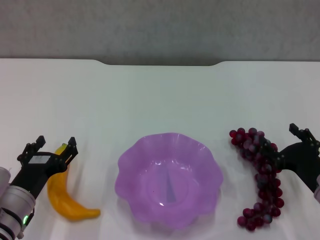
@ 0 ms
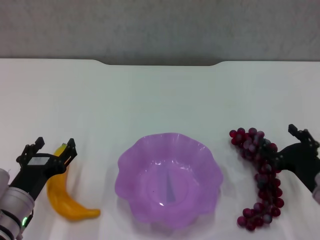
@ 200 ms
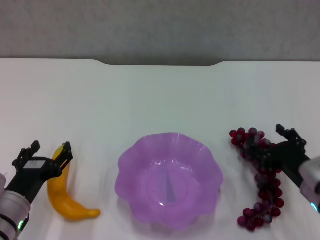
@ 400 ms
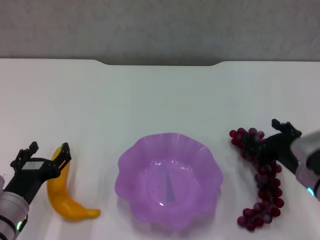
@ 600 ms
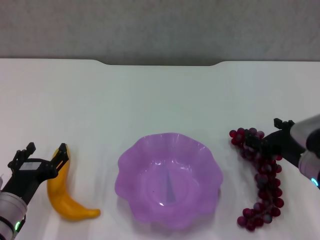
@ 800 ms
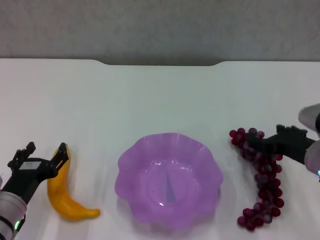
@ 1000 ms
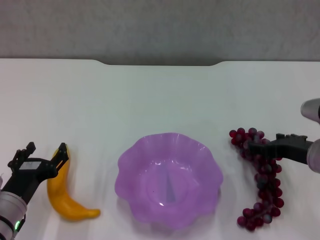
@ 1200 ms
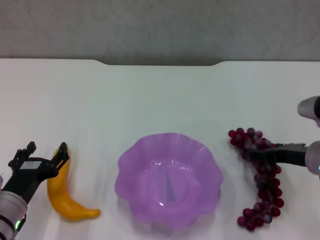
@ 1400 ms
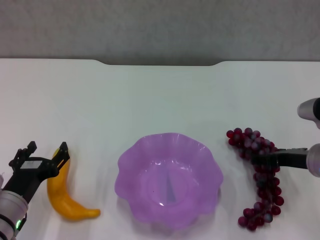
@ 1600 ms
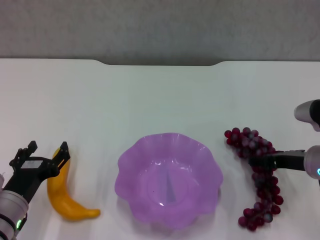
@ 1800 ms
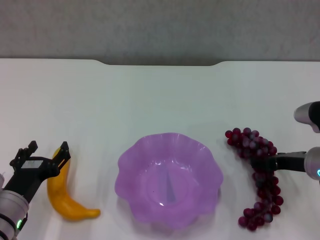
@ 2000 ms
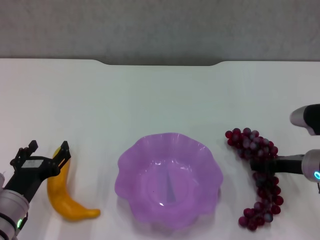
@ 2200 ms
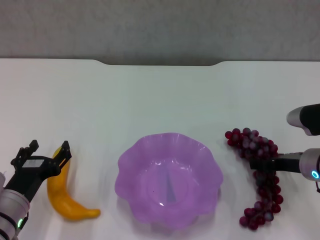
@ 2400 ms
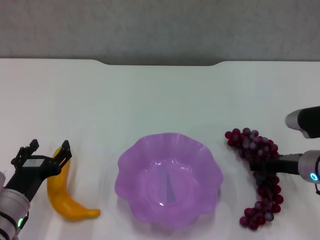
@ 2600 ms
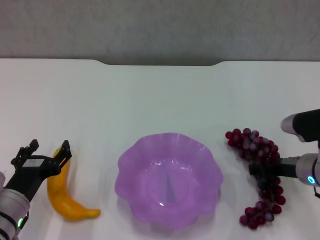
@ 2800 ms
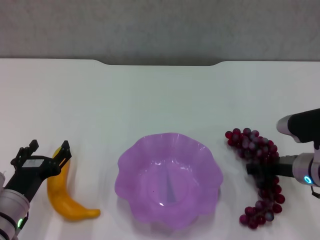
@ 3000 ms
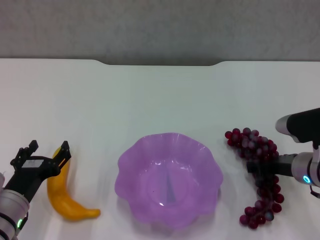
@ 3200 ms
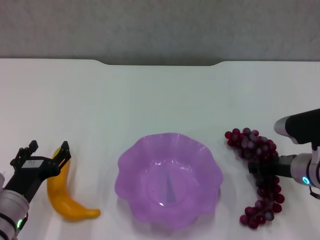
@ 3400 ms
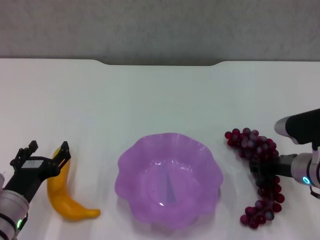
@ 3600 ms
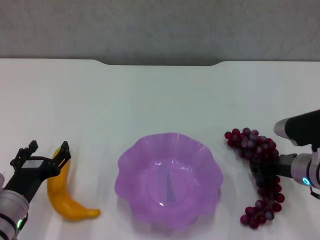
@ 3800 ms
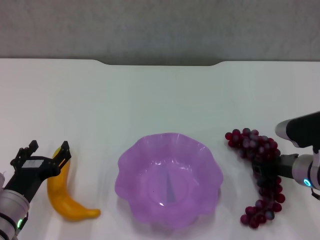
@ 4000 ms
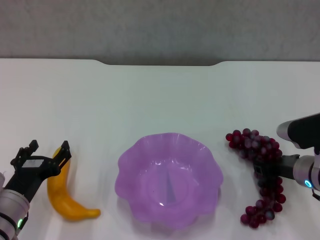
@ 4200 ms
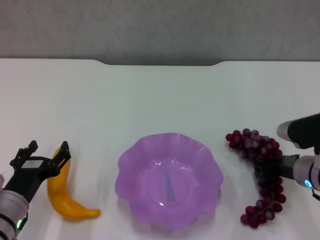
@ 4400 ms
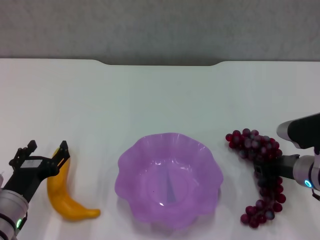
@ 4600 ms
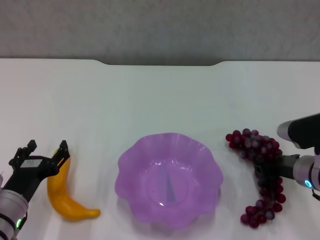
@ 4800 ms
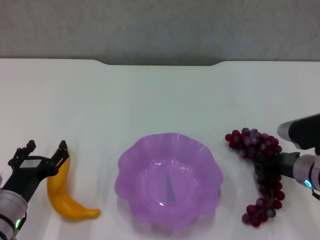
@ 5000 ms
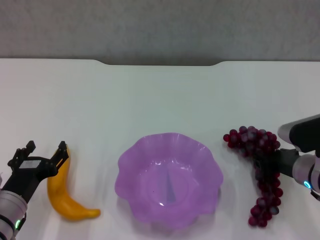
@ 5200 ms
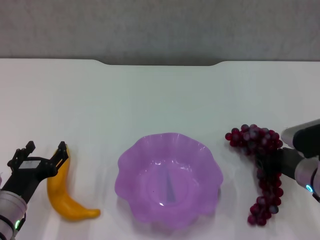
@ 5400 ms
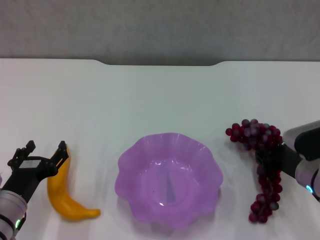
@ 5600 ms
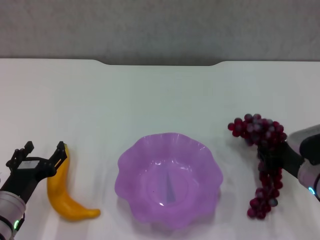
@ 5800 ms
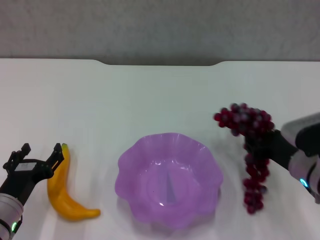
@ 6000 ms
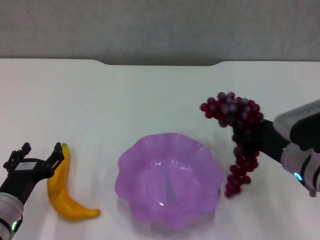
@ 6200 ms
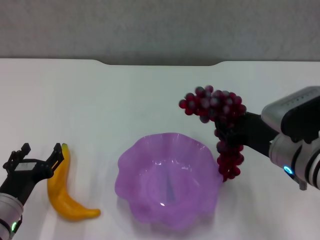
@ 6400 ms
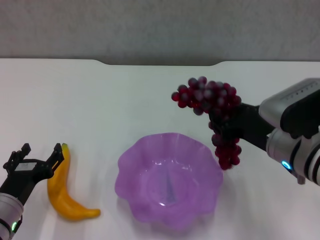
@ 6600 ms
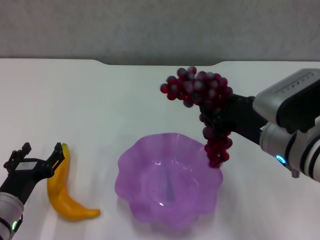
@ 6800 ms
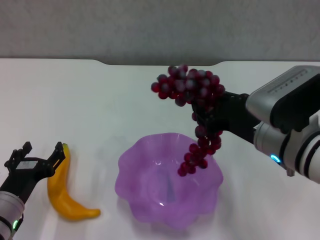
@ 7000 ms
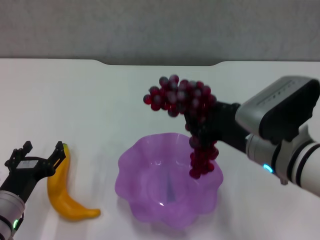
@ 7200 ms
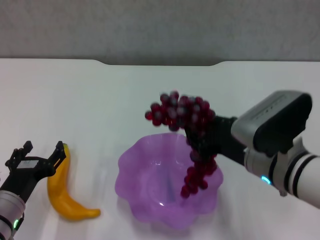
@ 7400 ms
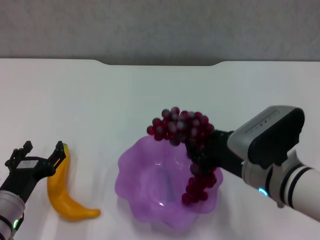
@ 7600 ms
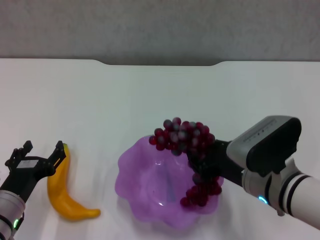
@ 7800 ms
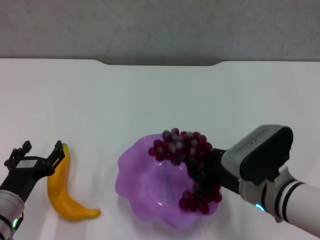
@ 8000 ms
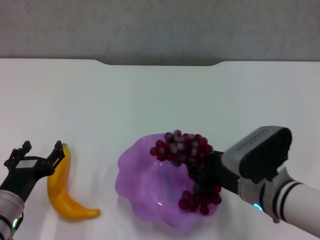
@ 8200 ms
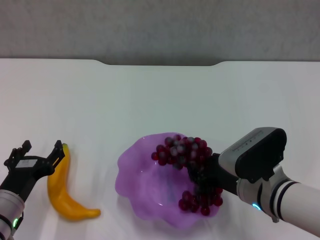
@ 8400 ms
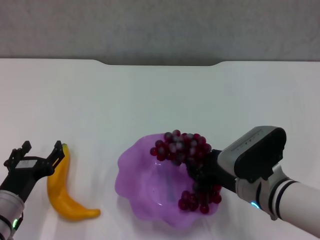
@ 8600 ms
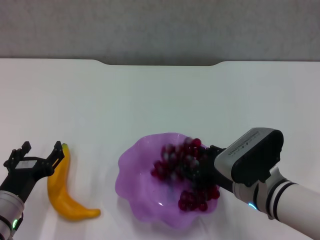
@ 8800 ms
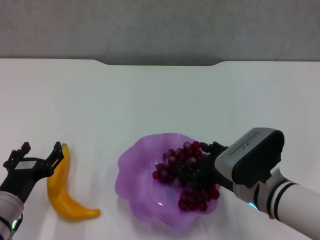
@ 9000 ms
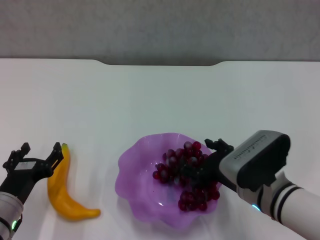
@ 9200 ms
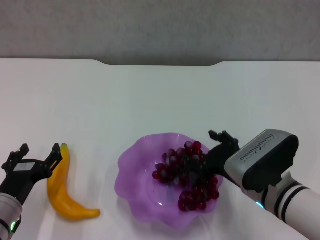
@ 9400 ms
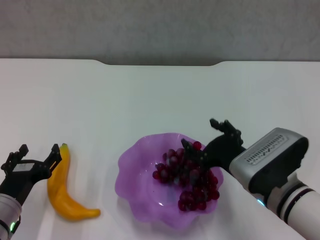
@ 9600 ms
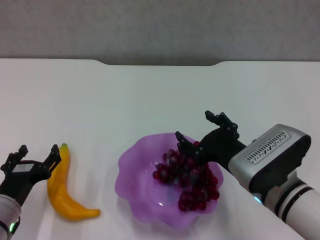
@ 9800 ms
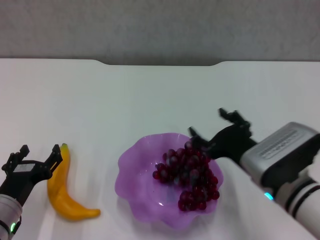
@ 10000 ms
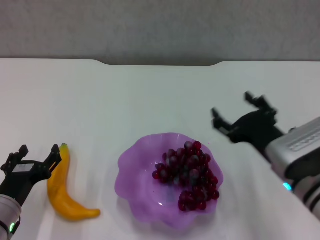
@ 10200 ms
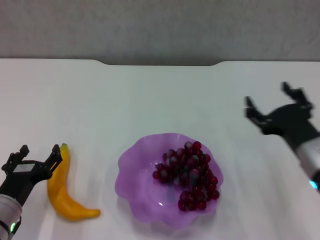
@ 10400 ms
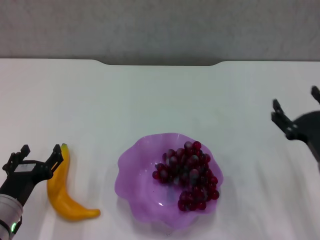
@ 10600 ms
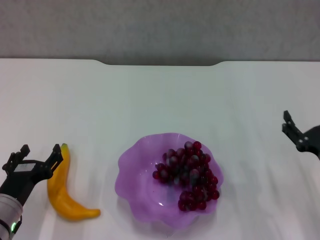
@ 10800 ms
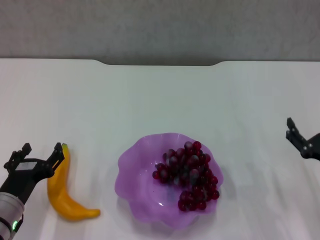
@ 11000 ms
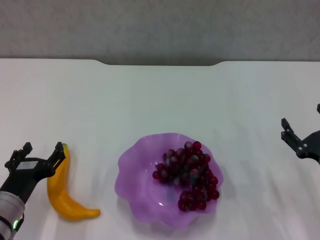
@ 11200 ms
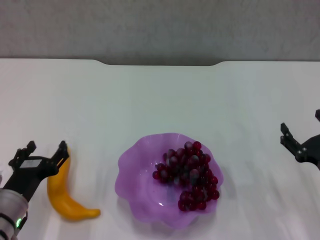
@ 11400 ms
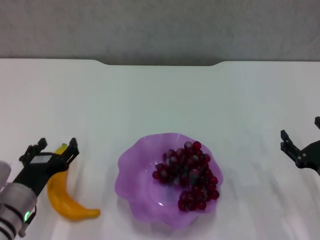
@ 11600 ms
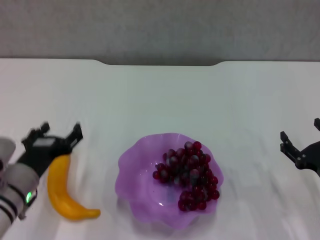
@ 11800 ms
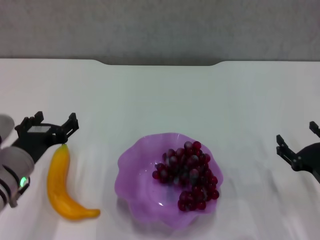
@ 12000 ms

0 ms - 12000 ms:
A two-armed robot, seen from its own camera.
Step, 0 ms - 3800 ms: Grasp the grape with right gripper.
Step, 4000 ms - 9600 ms: Place the grape in the purple plate with right gripper.
0 ms - 1600 ms: The right gripper travels forward and upward by some 10 cm.
1600 ms - 3000 ms: The grippers move only a little.
3000 ms - 4400 ms: The right gripper closes.
4400 ms - 6000 ms: The grippers move only a little.
6000 ms - 7600 ms: The right gripper is displaced to the left by approximately 10 cm.
7600 ms - 9000 ms: The grippers stay close to where they were, moving slightly.
9000 ms - 10400 ms: The right gripper heads to the right, covering about 10 cm, and opens.
10400 ms - 12000 ms: The right gripper travels downward and to the right by roughly 10 cm. The left gripper goes some 10 cm upward.

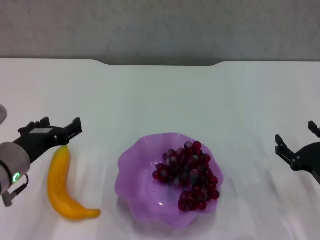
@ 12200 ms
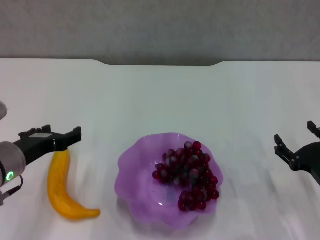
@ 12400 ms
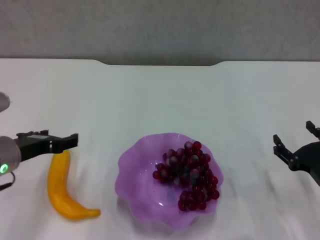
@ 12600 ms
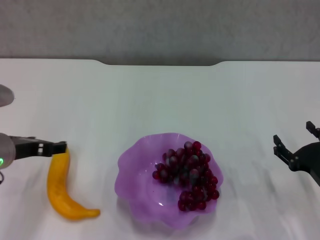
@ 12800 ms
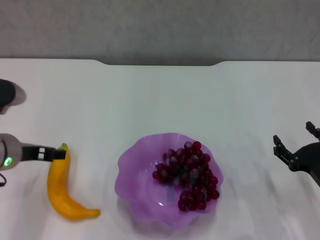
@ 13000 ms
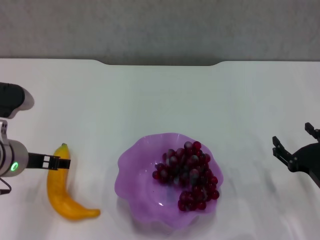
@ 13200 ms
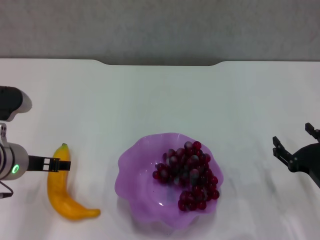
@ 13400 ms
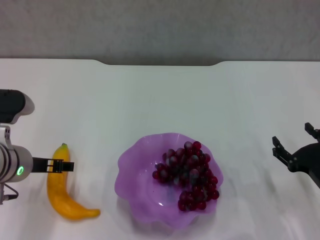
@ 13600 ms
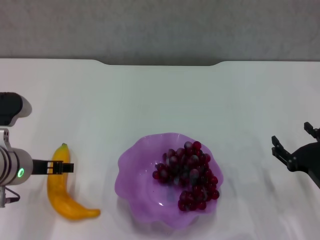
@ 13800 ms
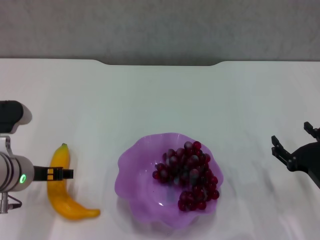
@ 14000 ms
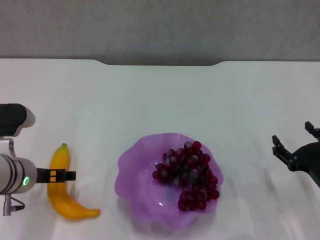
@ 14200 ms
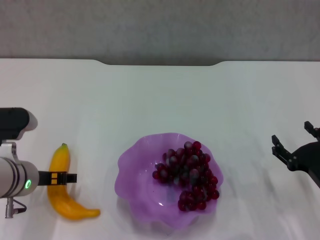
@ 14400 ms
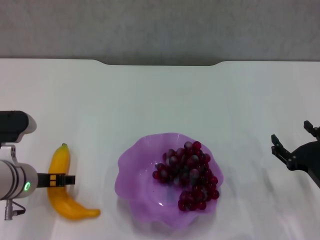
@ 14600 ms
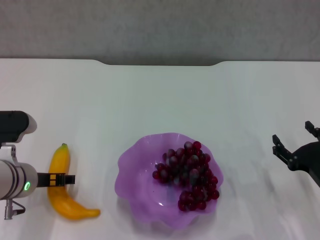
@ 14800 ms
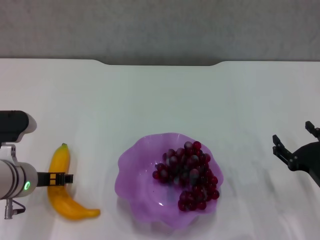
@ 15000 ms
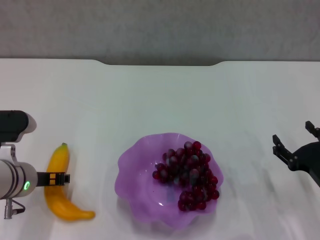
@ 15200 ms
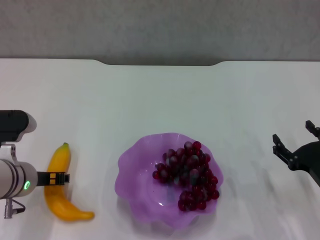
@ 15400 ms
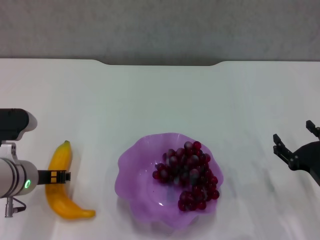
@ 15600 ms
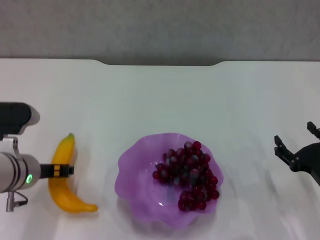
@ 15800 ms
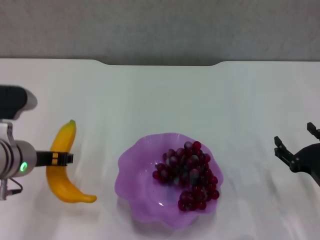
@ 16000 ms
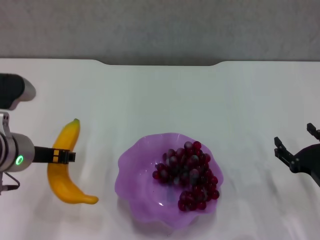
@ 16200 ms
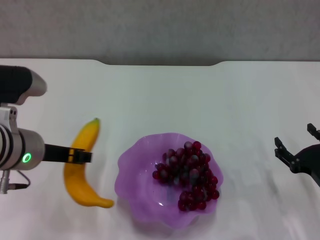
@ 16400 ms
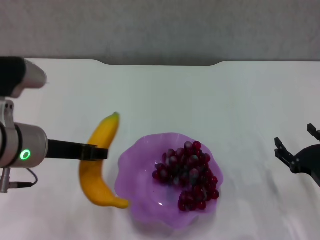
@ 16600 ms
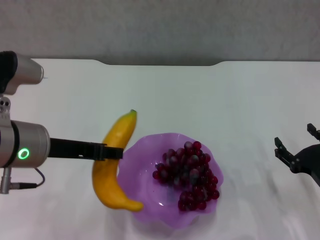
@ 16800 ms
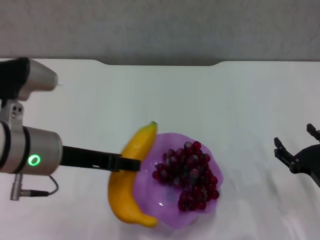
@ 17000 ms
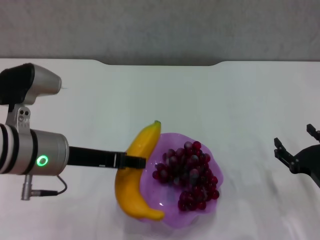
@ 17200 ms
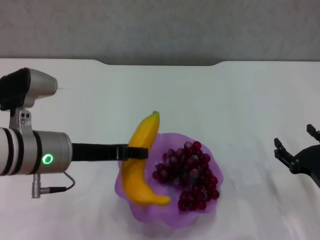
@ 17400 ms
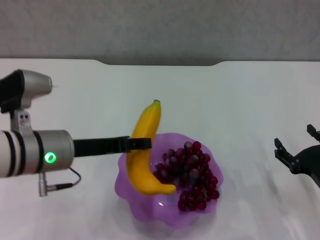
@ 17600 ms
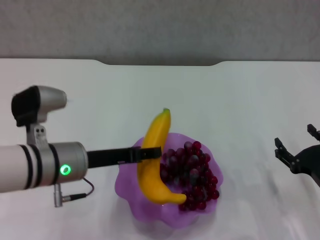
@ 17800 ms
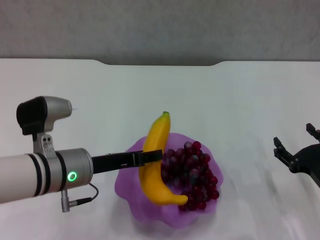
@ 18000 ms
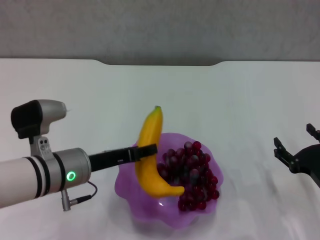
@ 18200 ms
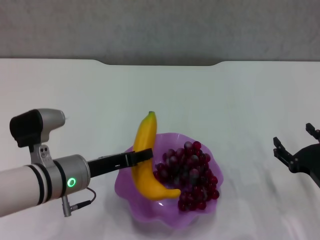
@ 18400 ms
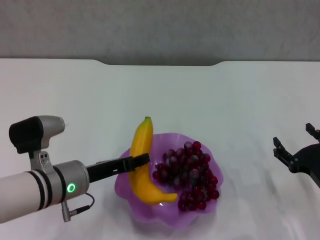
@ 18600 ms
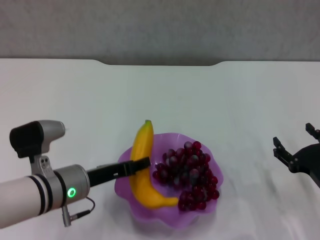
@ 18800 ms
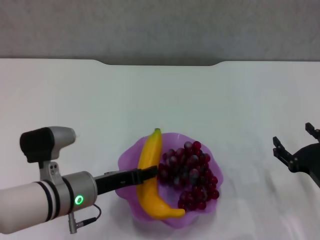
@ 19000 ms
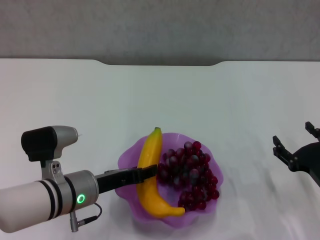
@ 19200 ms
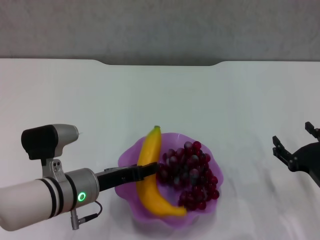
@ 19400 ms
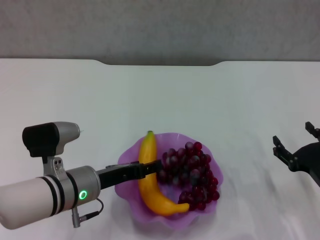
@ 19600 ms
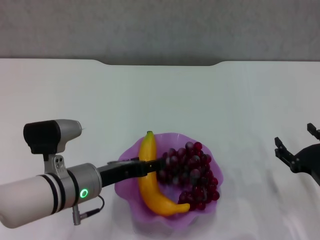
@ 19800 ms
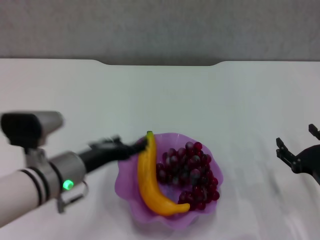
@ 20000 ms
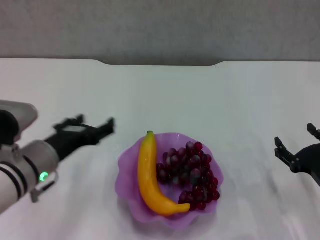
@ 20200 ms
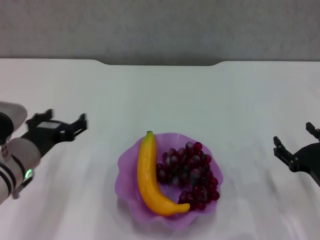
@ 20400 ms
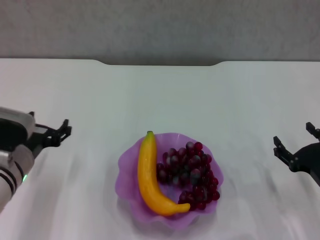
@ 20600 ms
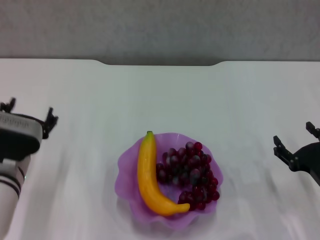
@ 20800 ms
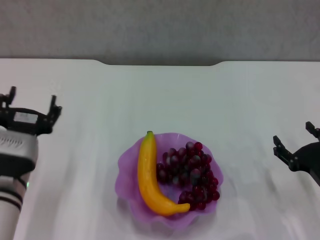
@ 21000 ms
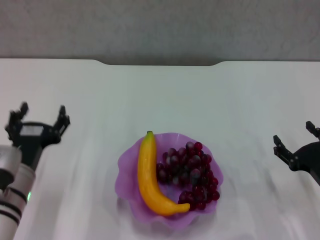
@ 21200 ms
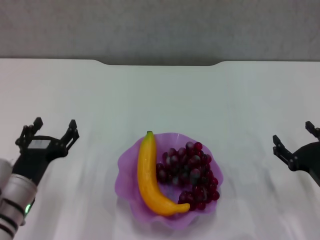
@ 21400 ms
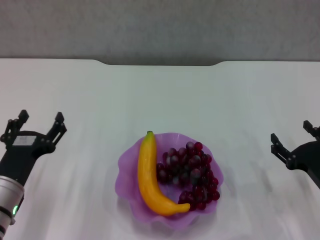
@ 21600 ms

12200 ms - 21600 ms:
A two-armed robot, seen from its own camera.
Step, 12200 ms - 15400 ms: Grasp the banana with left gripper.
Step, 15600 ms - 19800 ms: Place the banana in the purple plate with left gripper.
13800 ms - 15400 ms: The left gripper closes.
15400 ms - 17000 ms: The left gripper heads upward, covering about 10 cm.
17000 ms - 18400 ms: The left gripper moves downward, some 10 cm.
18400 ms - 20000 ms: The left gripper opens its fingers.
20000 ms - 21600 ms: The left gripper goes about 5 cm to the left.
